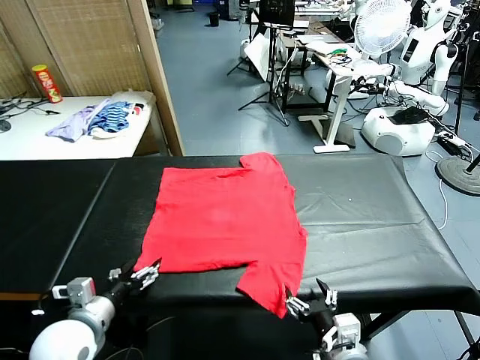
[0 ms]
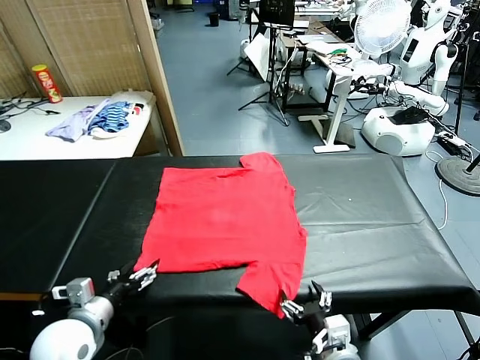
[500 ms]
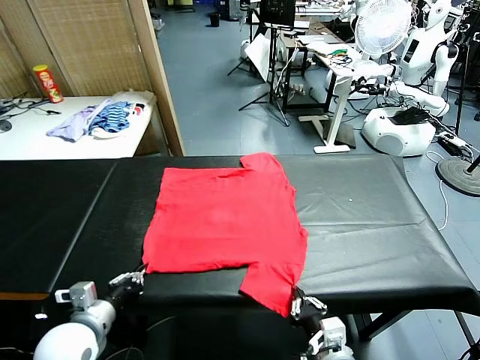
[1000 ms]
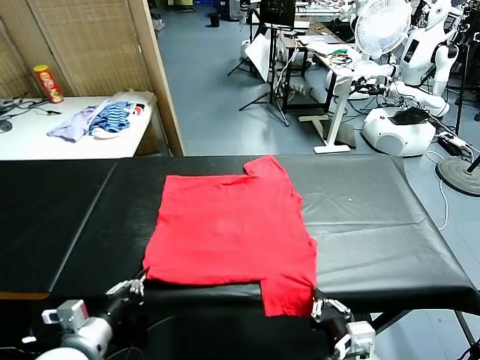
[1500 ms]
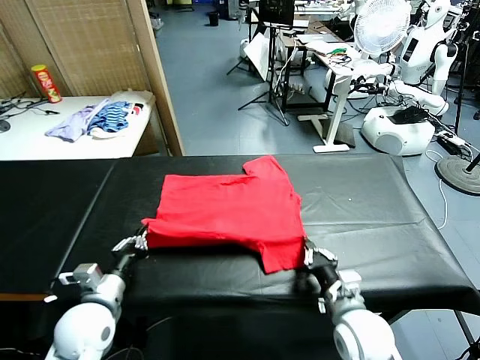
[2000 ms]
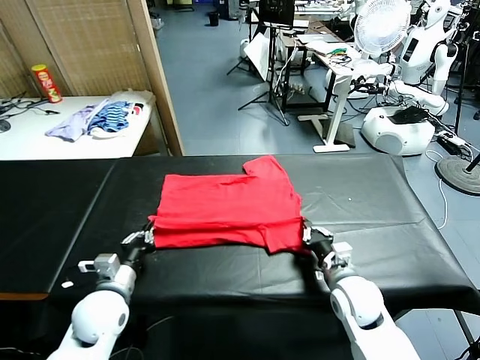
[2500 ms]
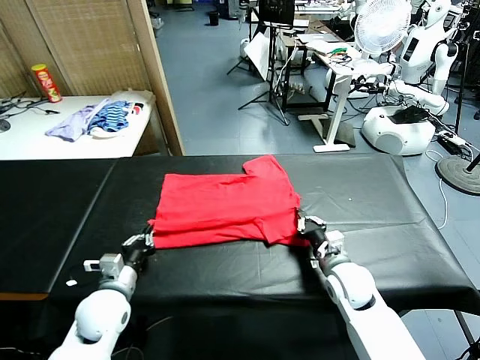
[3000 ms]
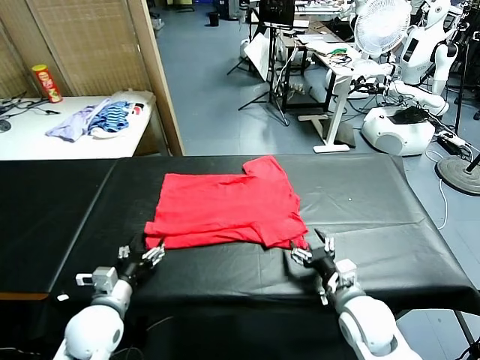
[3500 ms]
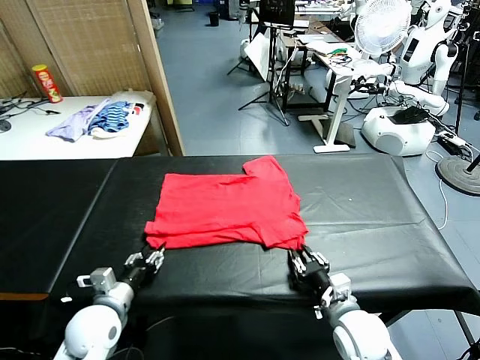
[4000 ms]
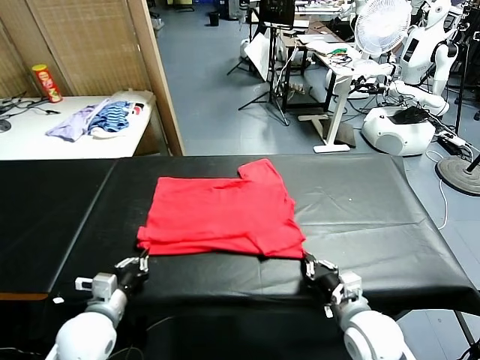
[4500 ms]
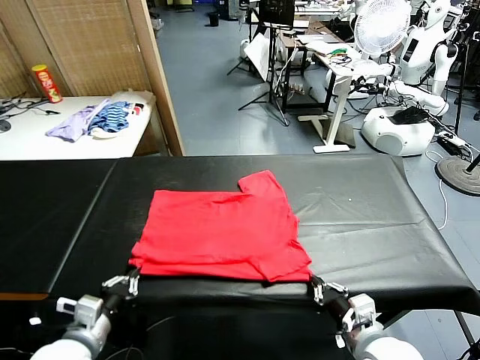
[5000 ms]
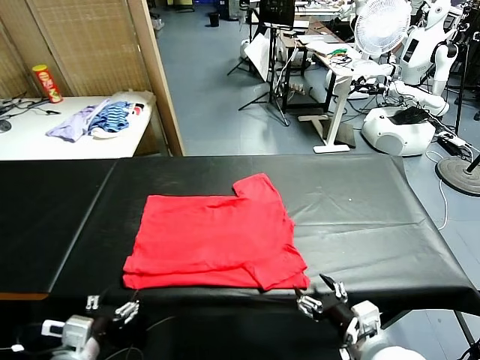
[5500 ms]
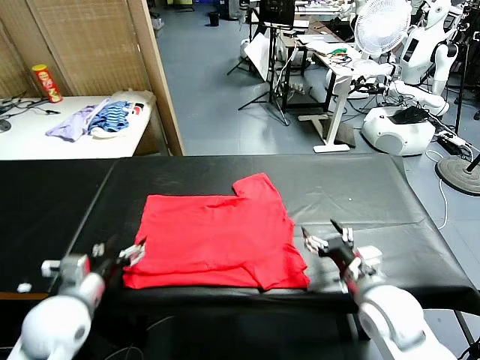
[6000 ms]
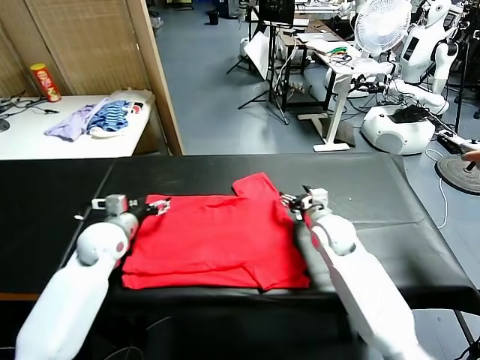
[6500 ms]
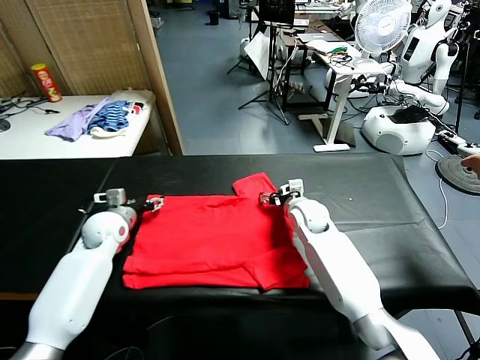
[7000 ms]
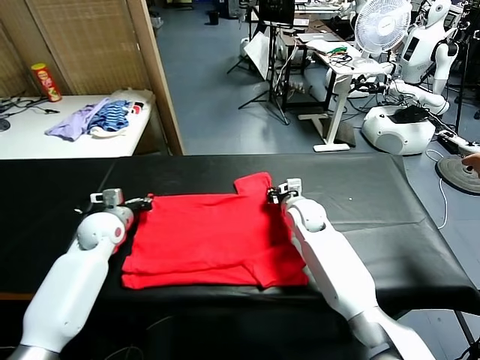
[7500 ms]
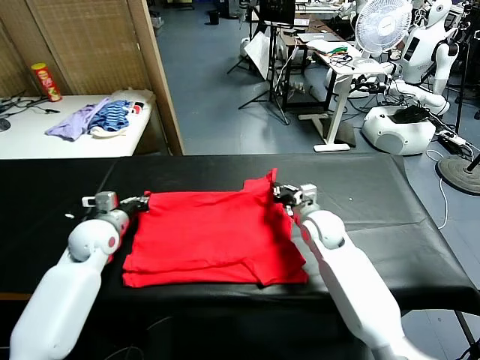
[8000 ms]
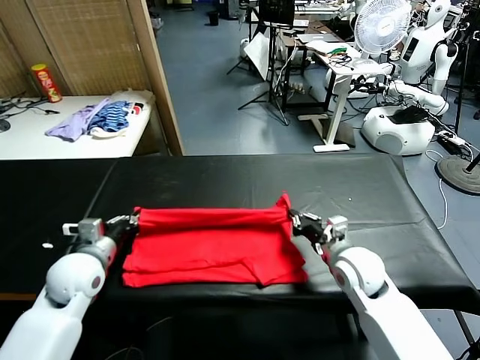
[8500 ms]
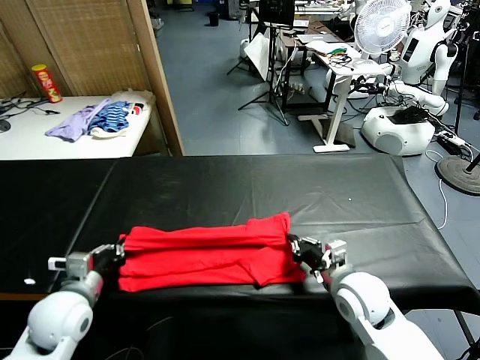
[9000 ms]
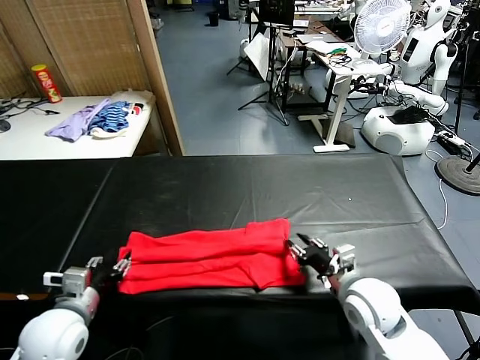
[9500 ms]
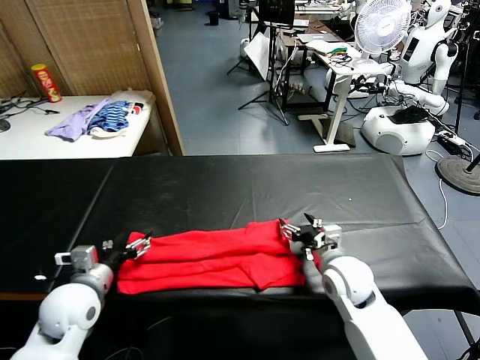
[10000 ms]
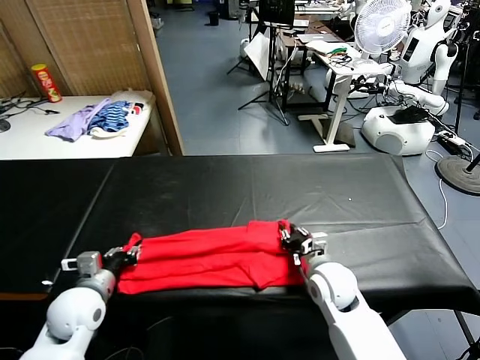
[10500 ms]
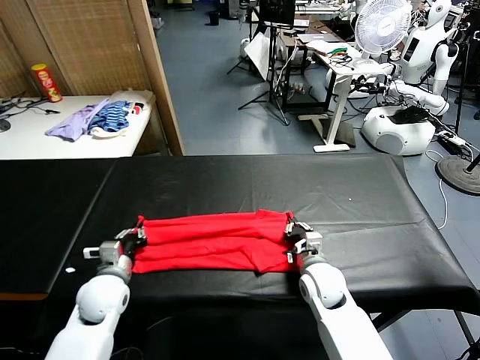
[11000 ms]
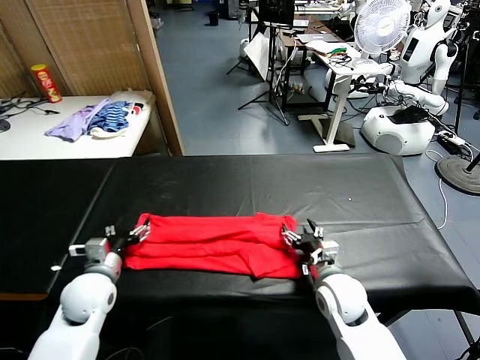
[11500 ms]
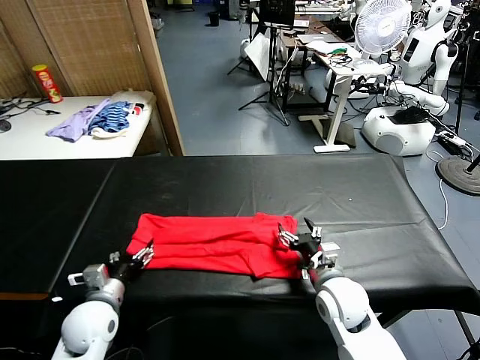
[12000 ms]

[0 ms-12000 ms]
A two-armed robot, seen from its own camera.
Task of the whole recording: fold and organize the clothes.
Step, 0 ms to 1000 ms: use both grippers simultaneously to clamp the lower edge of the clothing fabric.
Step, 1500 ms to 3000 ms: use both grippers to drag the lower edge of the fabric forward and fold it over the upper edge.
Step, 3500 ms to 5500 ms: Drag the clothes downward with both gripper.
Step, 6000 ms to 7500 ms: use both grippers simultaneously to clamp the upper edge of the clothing fabric.
Step, 8000 ms to 9500 ms: use both grippers to drag the upper edge of the fabric backward and fold it over the lower edge.
2000 ms to 4000 ms: The left gripper opens, then closes once more; the right gripper opens, then closes once more.
4000 ms to 6000 ms: The left gripper heads upward, covering approximately 10 cm, moves roughly 10 cm backward and comes back, and opens its fingers; the right gripper shifts approximately 10 cm forward and upward, and opens up.
6000 ms to 8000 ms: The grippers both shift forward by about 10 cm. The left gripper closes; the right gripper closes.
8000 ms to 10000 ms: The left gripper is displaced backward by roughly 15 cm, and opens its fingers, while the right gripper moves backward, approximately 10 cm, and opens its fingers.
10000 ms to 12000 ms: The left gripper heads downward, covering roughly 5 cm, and closes, then opens again. Meanwhile the right gripper closes and opens again.

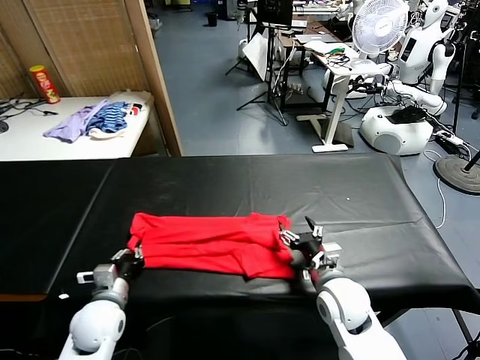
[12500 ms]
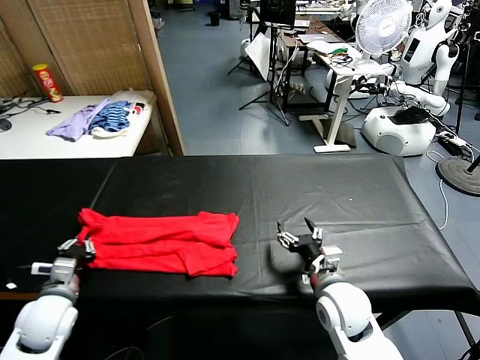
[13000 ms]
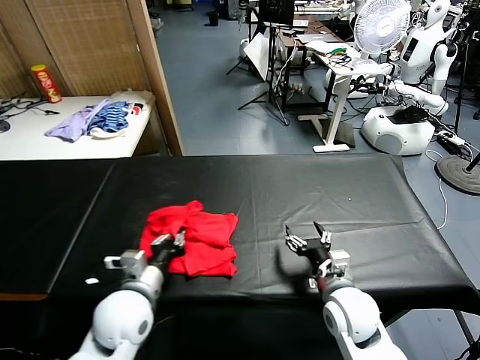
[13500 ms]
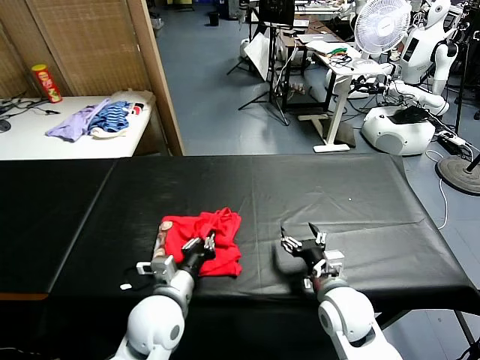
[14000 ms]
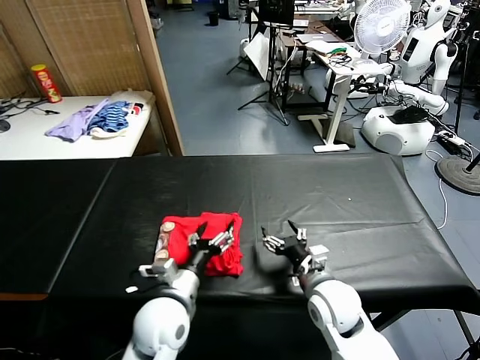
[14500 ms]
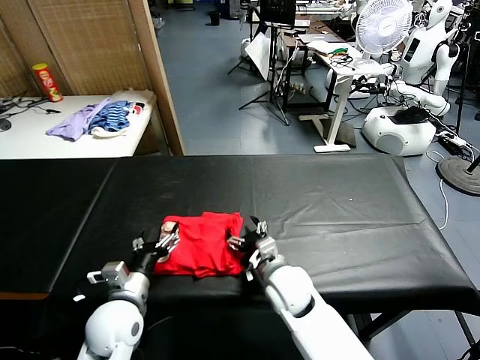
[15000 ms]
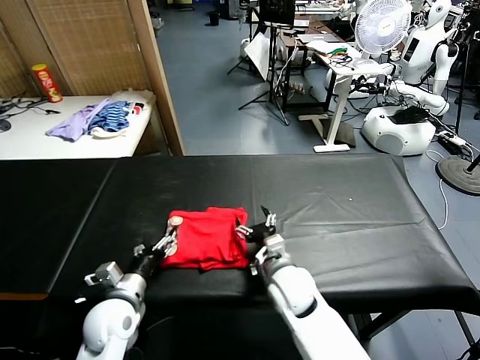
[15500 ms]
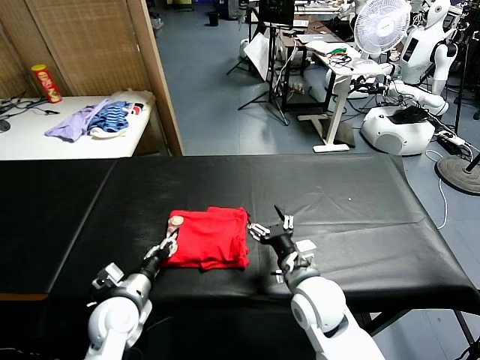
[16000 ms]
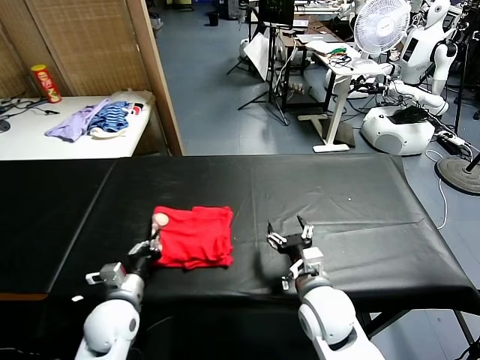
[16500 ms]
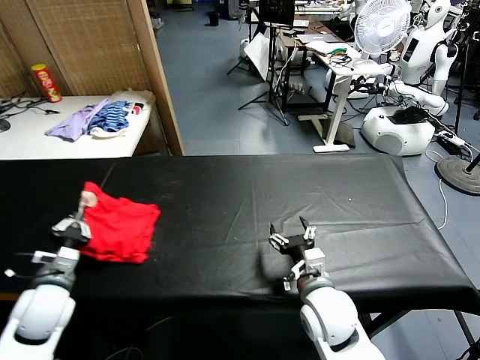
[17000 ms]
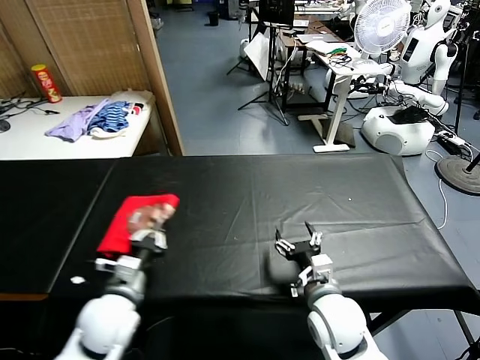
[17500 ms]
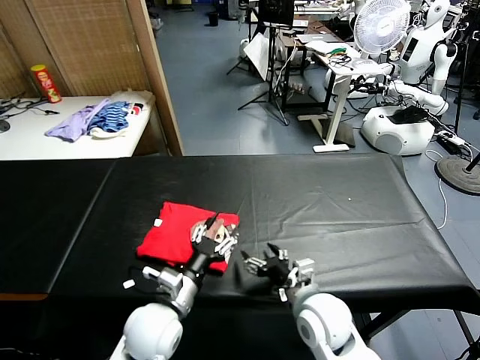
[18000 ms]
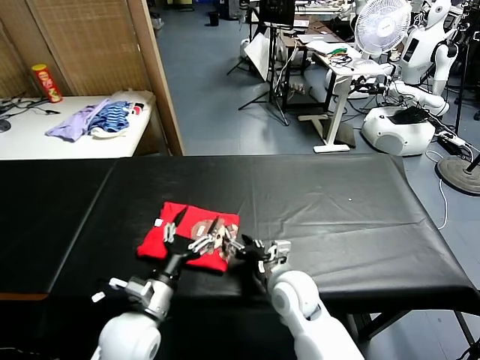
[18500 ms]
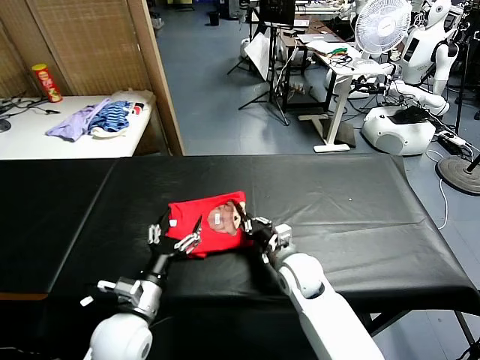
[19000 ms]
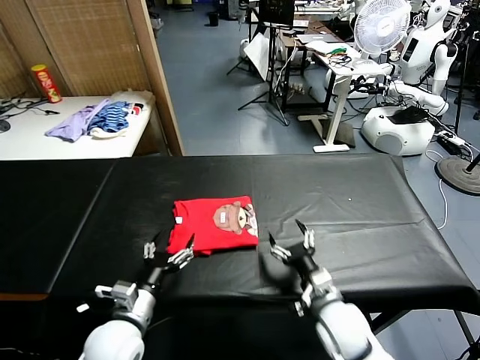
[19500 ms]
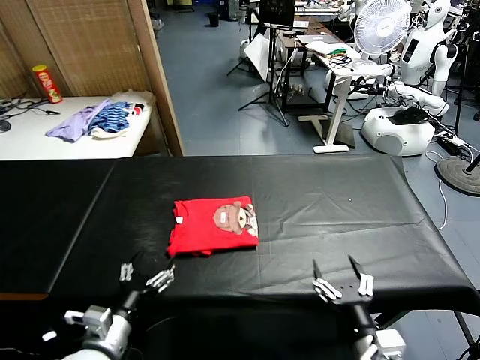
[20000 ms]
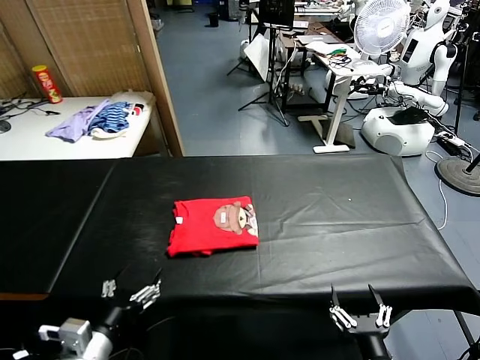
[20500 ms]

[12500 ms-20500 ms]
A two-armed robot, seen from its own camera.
Task of the whole recording: fold and organize the clothes.
Step, 12500 ms to 14000 ms: use the left gripper to drag the left edge of the fabric to the left and folds it over the right edge.
Step, 14500 ms to 17500 ms: Flip the folded clothes over with left gripper.
Step, 18500 ms to 19000 ms: Drag the clothes to the center of the table.
12500 ms to 14500 ms: The left gripper shifts roughly 15 cm to the right, and opens.
14500 ms to 16500 ms: The left gripper travels to the left by approximately 10 cm, and closes up. The right gripper goes to the left and returns, roughly 10 cm each way.
16500 ms to 18500 ms: The left gripper travels to the left and back again, roughly 10 cm each way, and opens up, while the right gripper changes place by about 10 cm.
18500 ms to 20500 ms: The left gripper heads backward and to the left, covering roughly 10 cm. Meanwhile the right gripper heads backward and to the right, covering about 25 cm, and closes, then opens again.

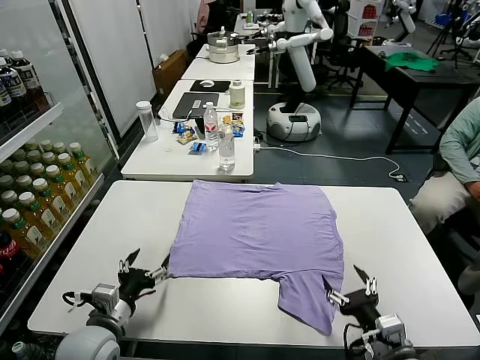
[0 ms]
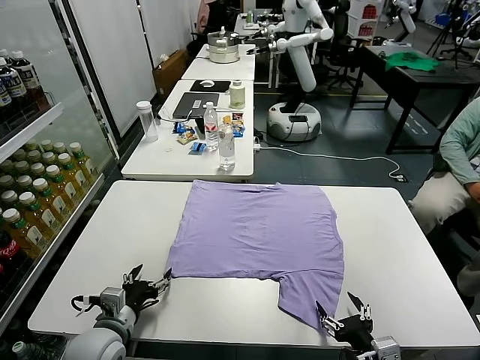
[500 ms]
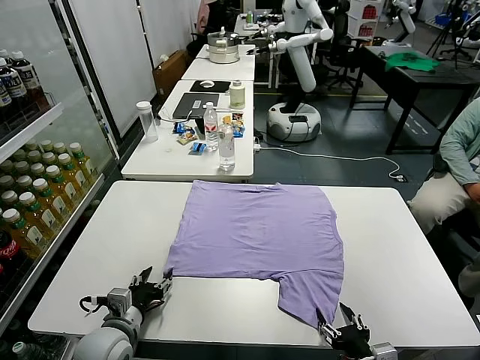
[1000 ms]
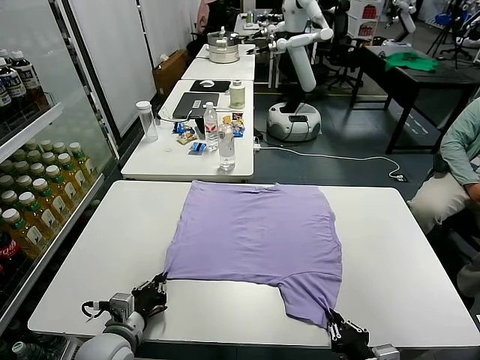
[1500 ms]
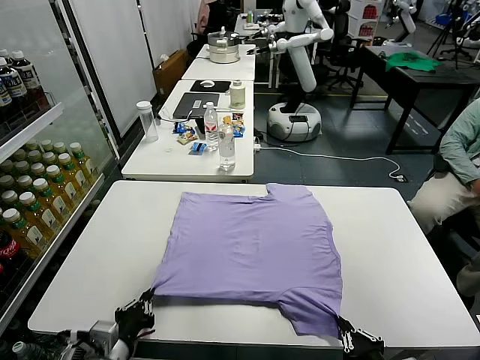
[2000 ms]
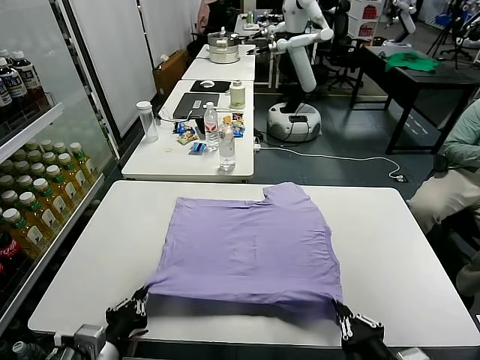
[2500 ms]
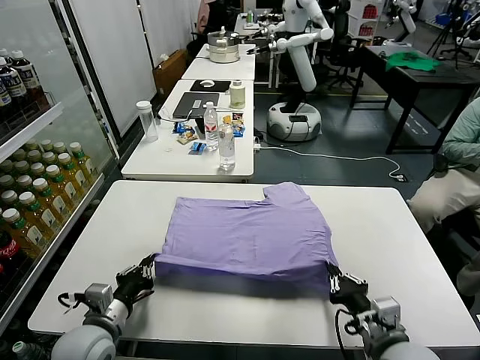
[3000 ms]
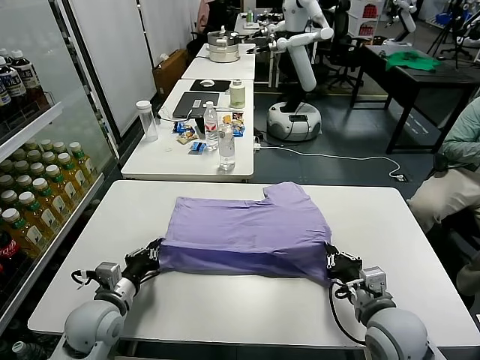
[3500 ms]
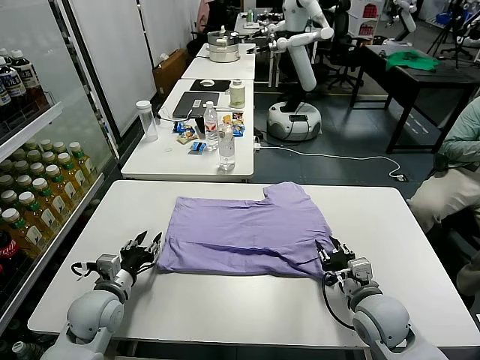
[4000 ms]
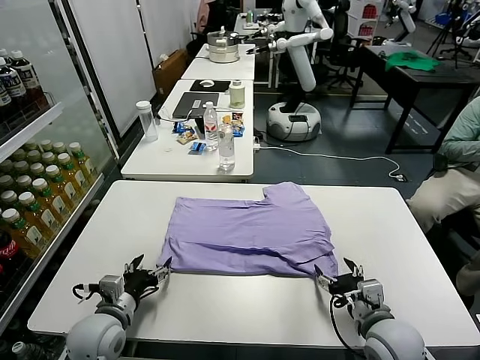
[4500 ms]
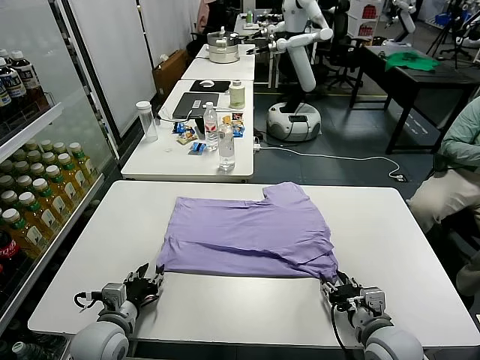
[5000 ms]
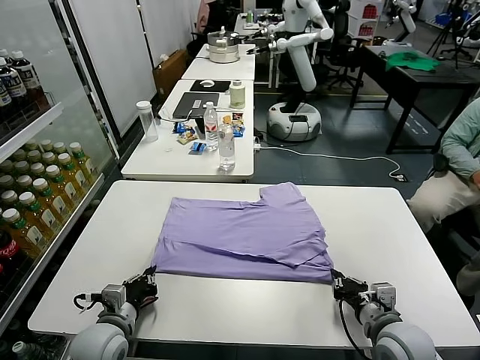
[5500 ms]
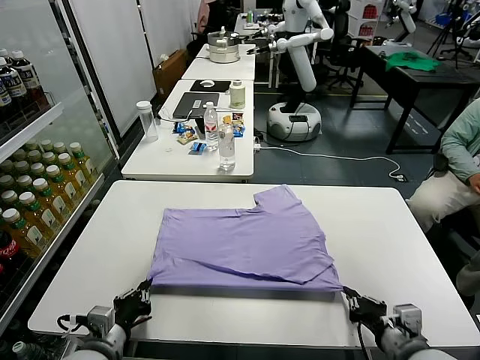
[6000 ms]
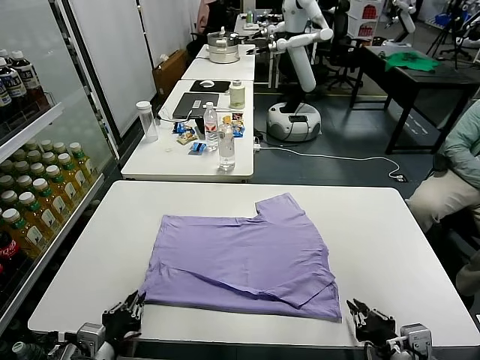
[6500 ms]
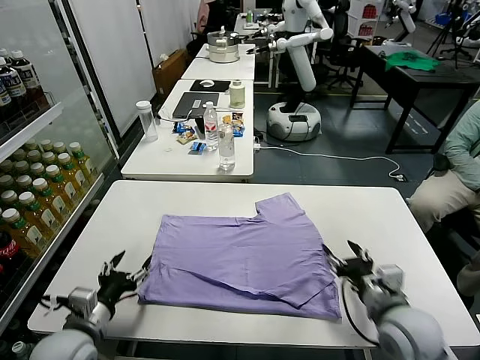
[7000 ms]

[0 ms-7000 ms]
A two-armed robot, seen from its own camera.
Task of the whole recording: fold and organize the clothes.
Step, 0 ms to 2000 ms: use both grippers simultaneously to clamp the lower edge of the clothing fabric.
Step, 2500 ms to 4000 ms: use both grippers to drag the lower edge of the fabric forward and fold it over the upper edge.
Step, 4500 ms to 6500 ms: Drag the clothes downward with both gripper.
2000 ms to 3500 ms: Both grippers travel together forward, about 15 cm.
3500 ms to 5000 ms: The right gripper opens and closes again. The left gripper opens up.
5000 ms to 7000 ms: The left gripper travels backward and back again, roughly 10 cm each way, and opens. Meanwhile the right gripper is displaced forward and upward by roughly 5 cm, and opens.
